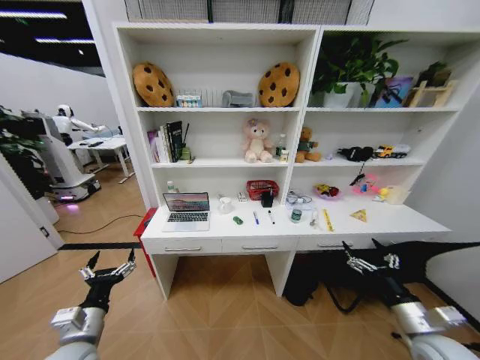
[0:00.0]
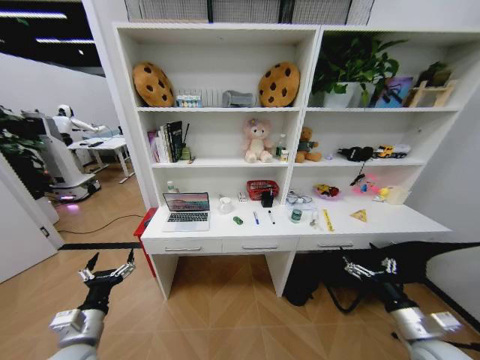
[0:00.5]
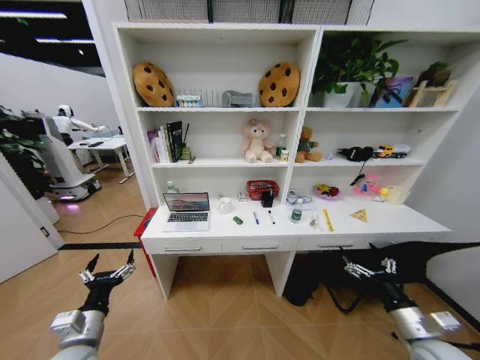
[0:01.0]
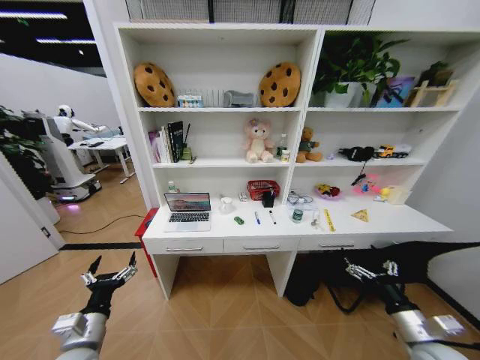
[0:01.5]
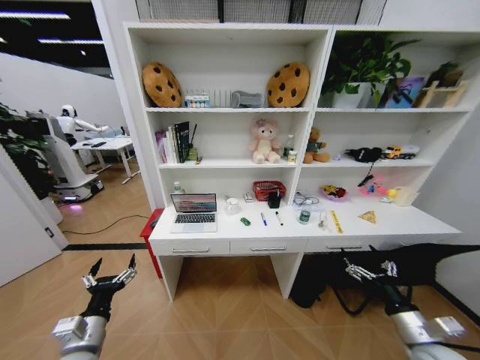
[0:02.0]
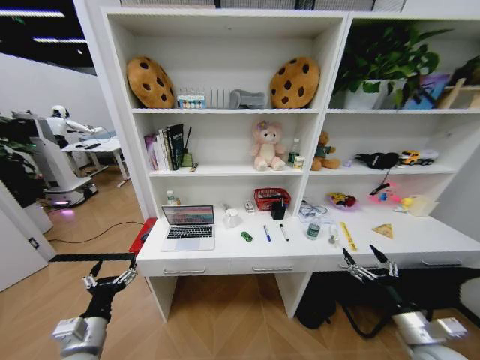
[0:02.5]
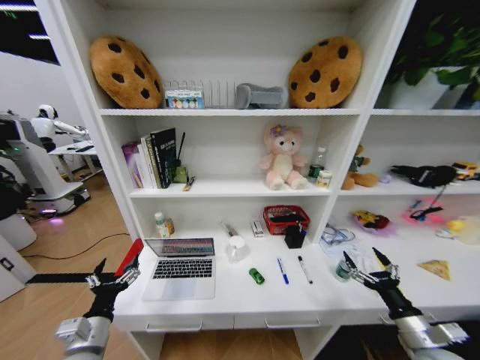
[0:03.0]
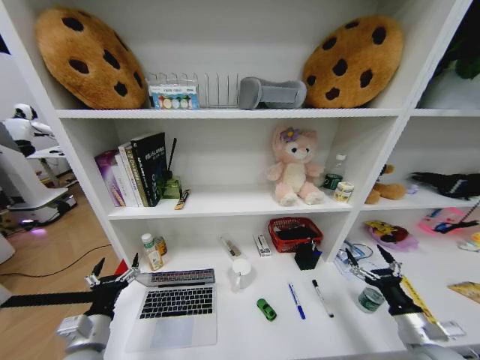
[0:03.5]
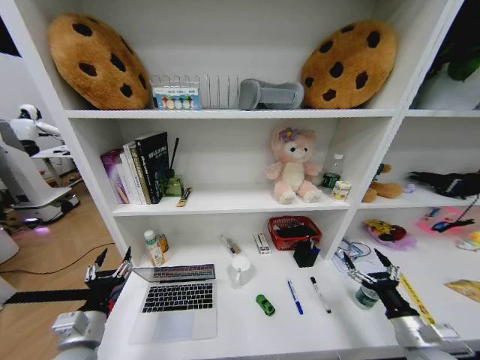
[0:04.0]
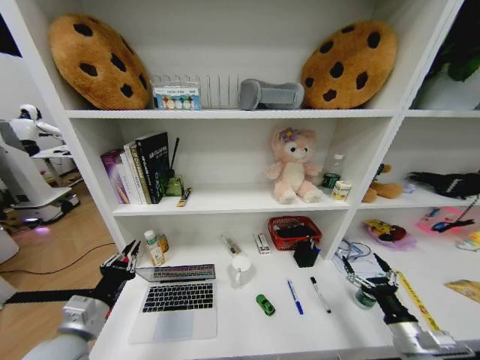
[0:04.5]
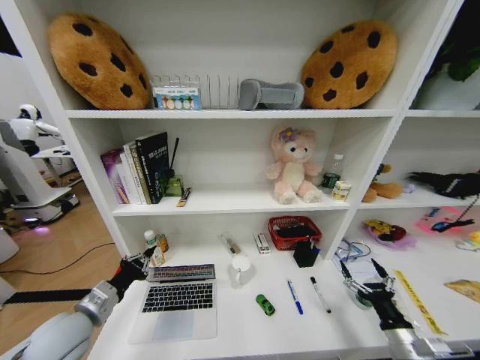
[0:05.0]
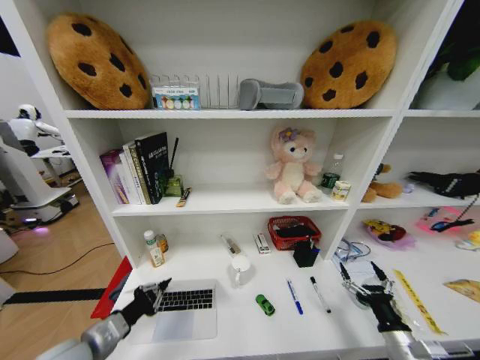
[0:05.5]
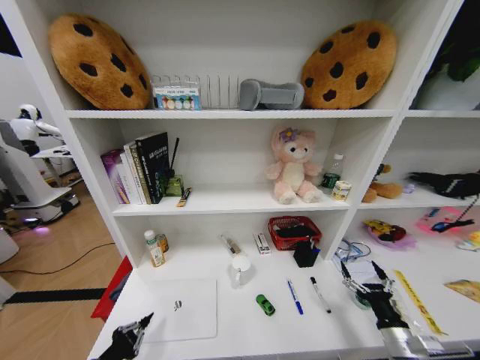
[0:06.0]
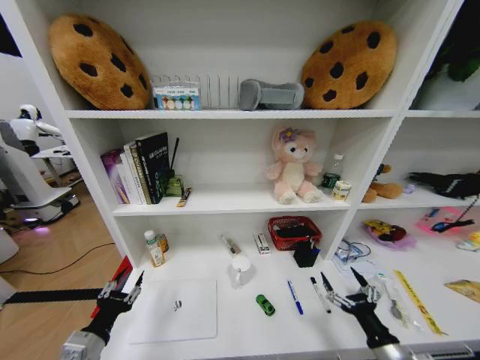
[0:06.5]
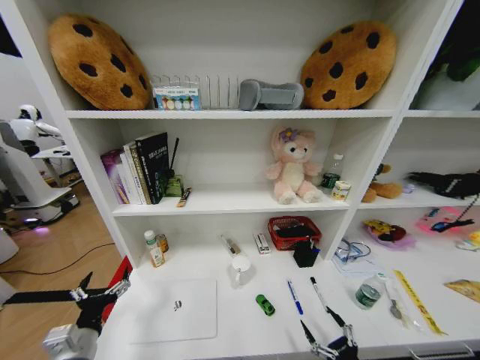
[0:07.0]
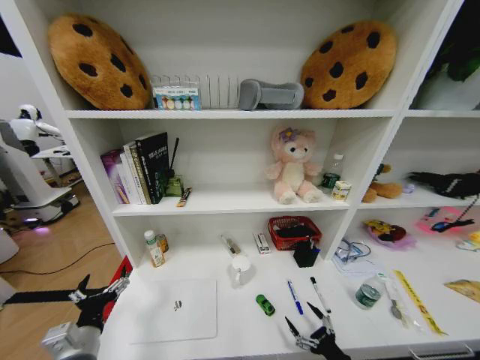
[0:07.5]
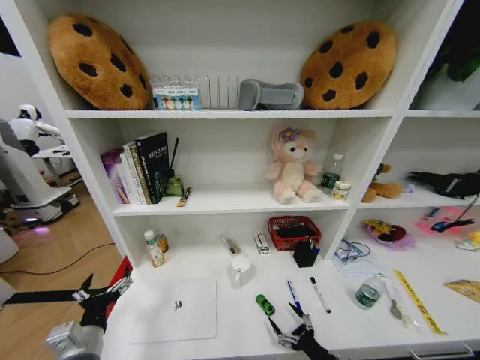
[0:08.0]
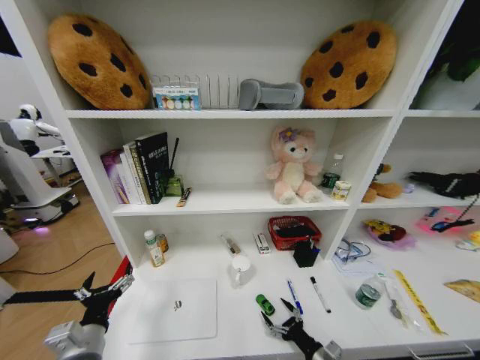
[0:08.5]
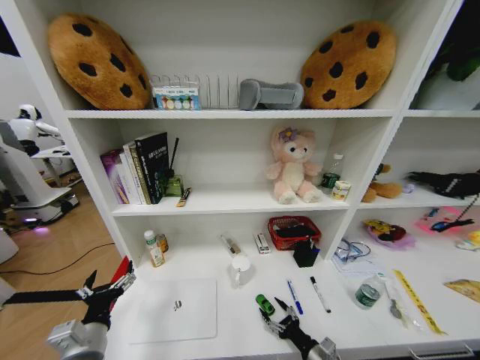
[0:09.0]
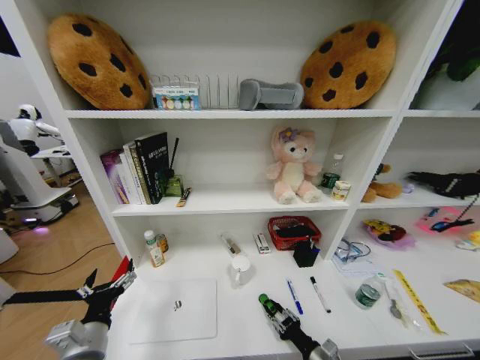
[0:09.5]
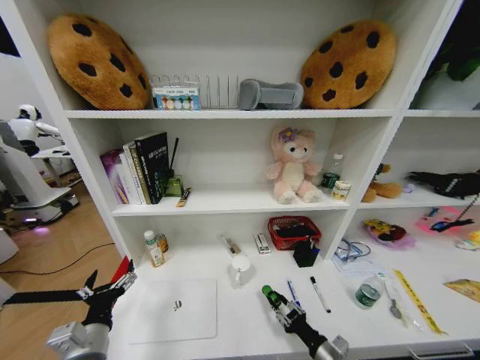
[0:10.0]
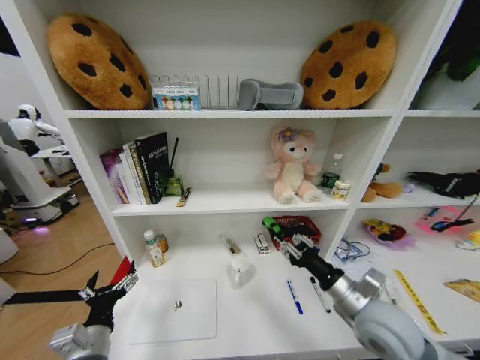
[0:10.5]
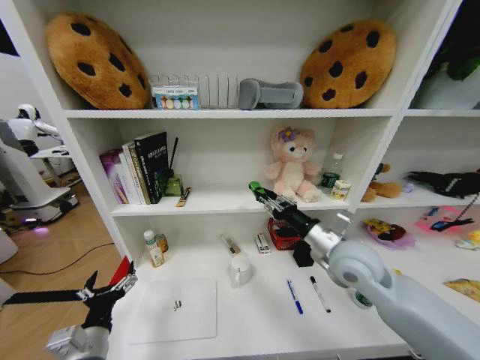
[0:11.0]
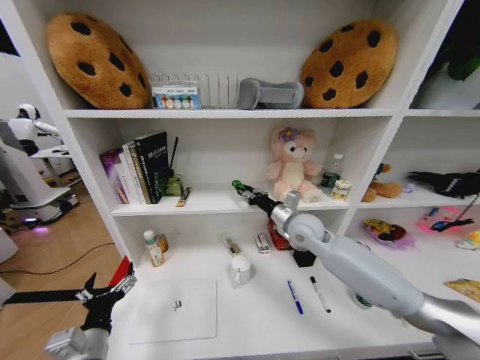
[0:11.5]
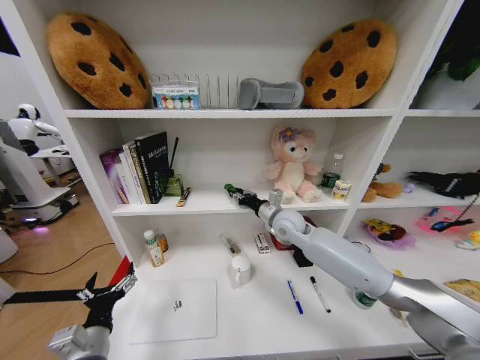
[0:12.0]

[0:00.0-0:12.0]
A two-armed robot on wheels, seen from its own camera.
Task of the whole recording: Organize the objects on the table.
0:04.0 to 0:06.0: The left gripper travels backward by roughly 10 cm, and closes up.
0:06.0 to 0:08.0: The left gripper travels forward by about 5 cm, and opens. Meanwhile the right gripper moves to the left and downward, approximately 15 cm.
0:08.0 to 0:10.0: The right gripper moves about 5 cm, and closes.
0:10.0 to 0:12.0: The right gripper is displaced forward and upward by some 40 cm.

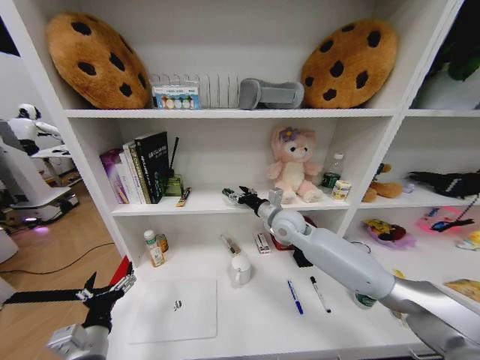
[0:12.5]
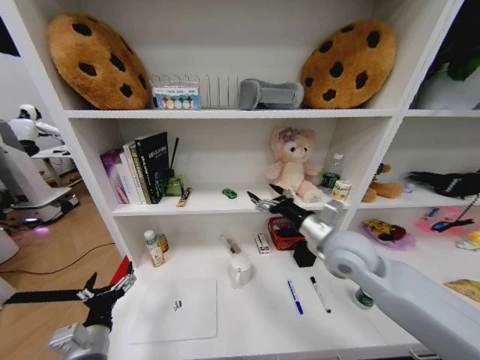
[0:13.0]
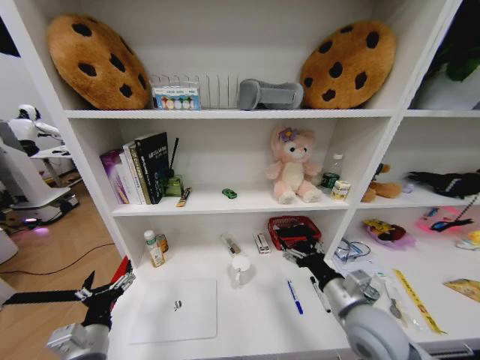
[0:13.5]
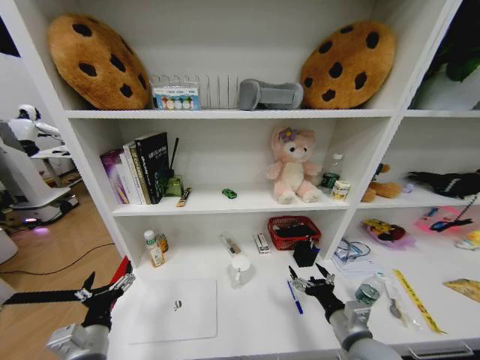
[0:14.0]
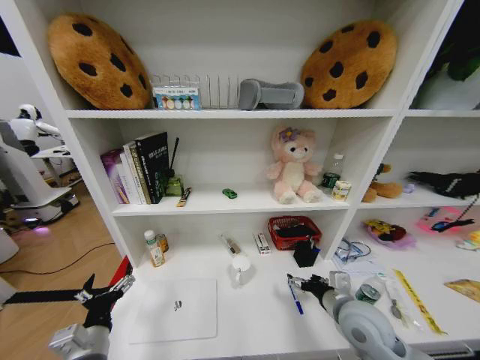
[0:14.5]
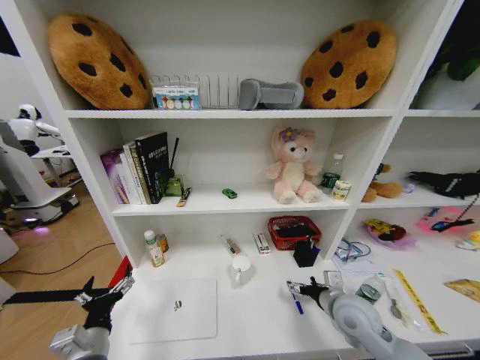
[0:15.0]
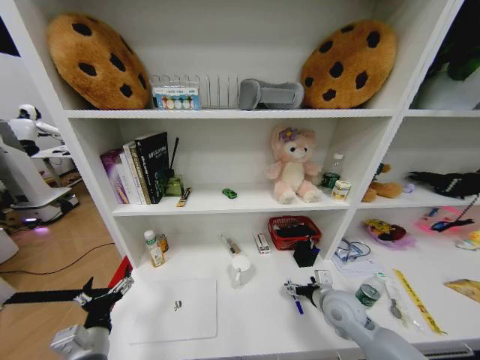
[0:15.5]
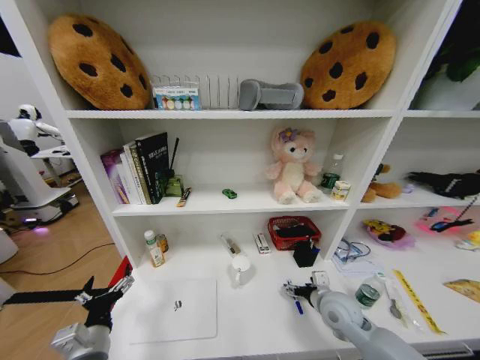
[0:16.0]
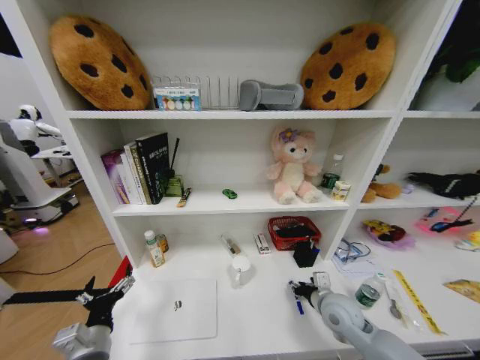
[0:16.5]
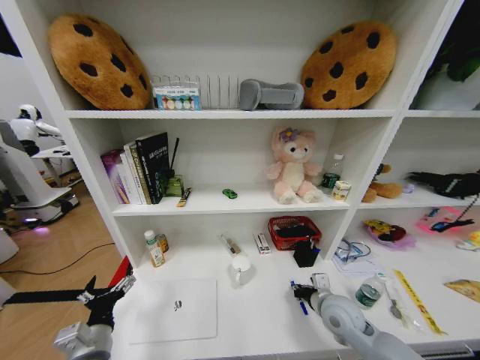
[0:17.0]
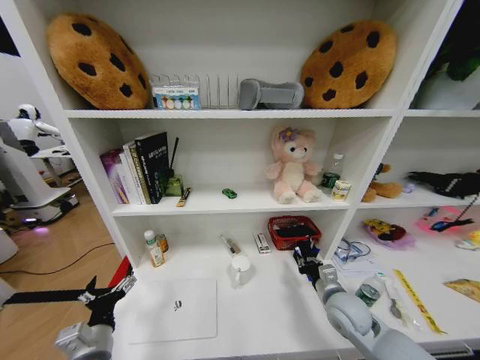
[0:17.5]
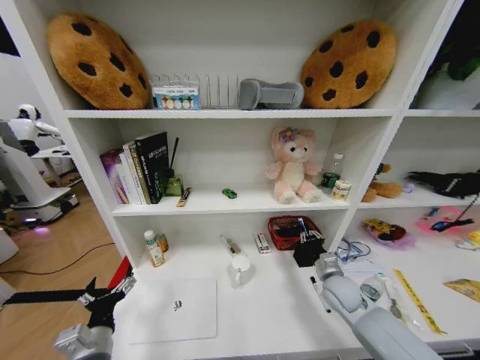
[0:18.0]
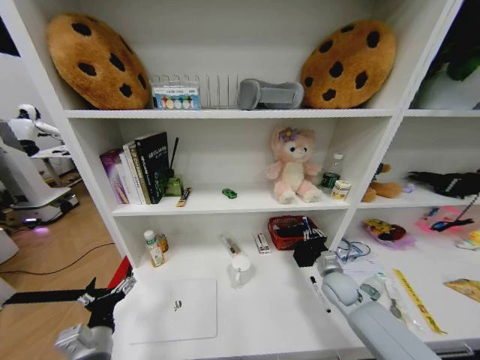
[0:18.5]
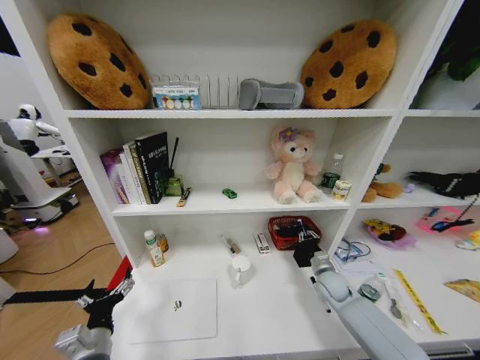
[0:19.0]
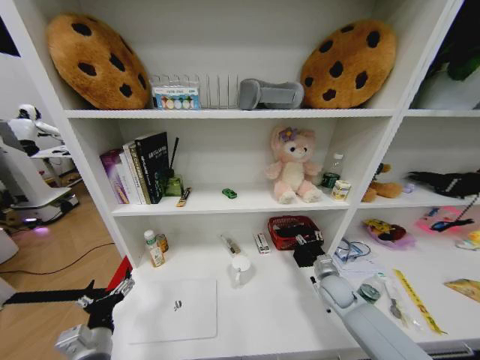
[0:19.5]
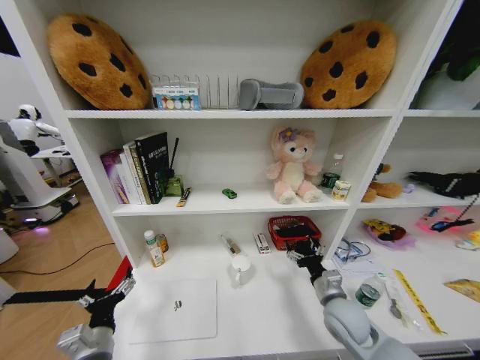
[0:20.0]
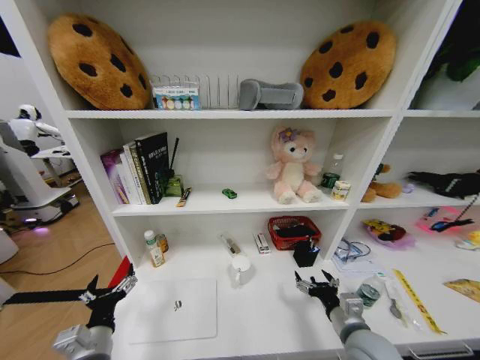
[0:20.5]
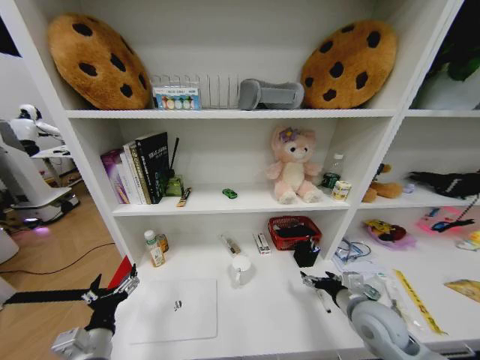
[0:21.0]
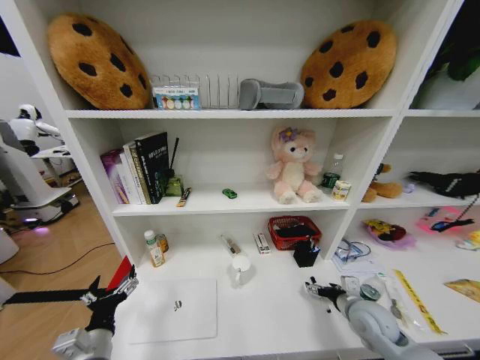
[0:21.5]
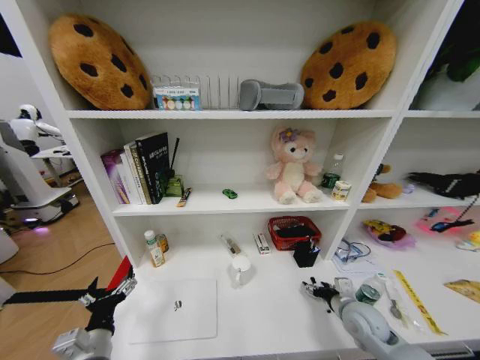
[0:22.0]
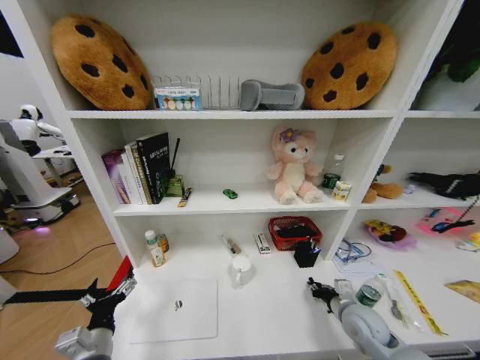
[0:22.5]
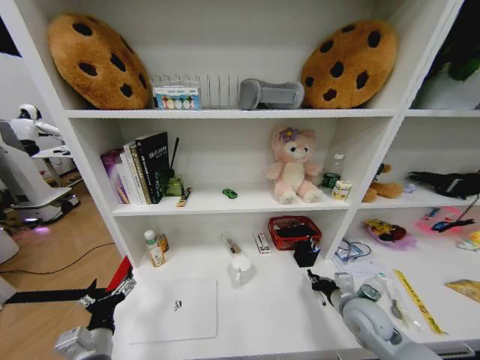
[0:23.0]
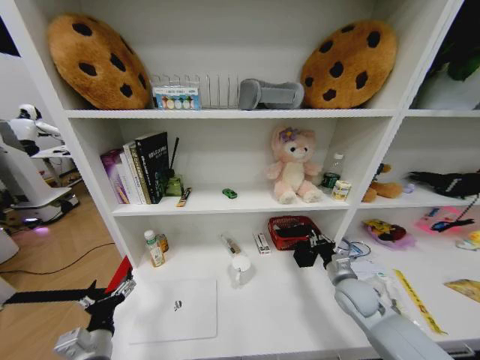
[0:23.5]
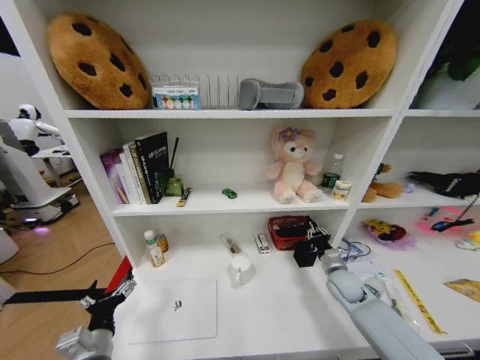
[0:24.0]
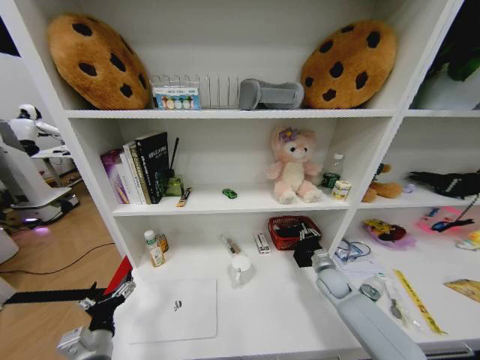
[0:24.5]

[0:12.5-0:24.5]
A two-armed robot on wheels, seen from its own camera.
Task of the whole recording: Organize the objects on the table.
0:12.5 to 0:14.5: The right gripper travels backward, to the right and downward by some 25 cm.
0:14.5 to 0:16.5: The right gripper shifts approximately 5 cm downward, and closes up.
0:16.5 to 0:18.5: The right gripper travels forward and to the right by approximately 10 cm.
0:18.5 to 0:20.5: The right gripper is displaced backward by some 15 cm, and opens up.
0:20.5 to 0:22.5: The right gripper is displaced forward, to the right and downward by roughly 10 cm, and closes up.
0:22.5 to 0:24.5: The right gripper is displaced forward by roughly 15 cm.

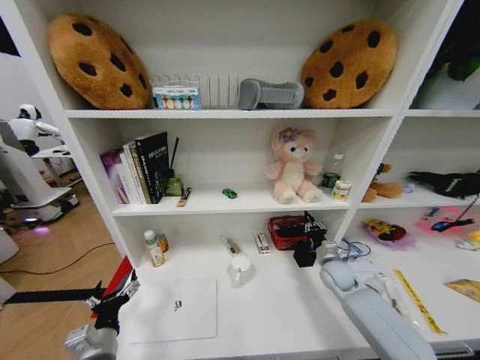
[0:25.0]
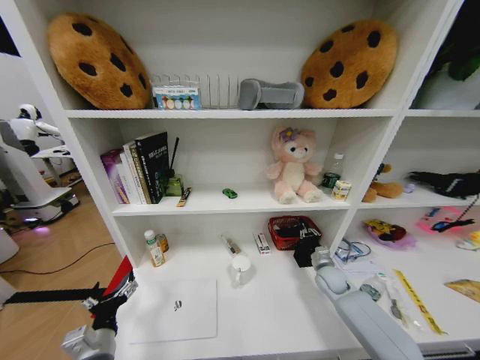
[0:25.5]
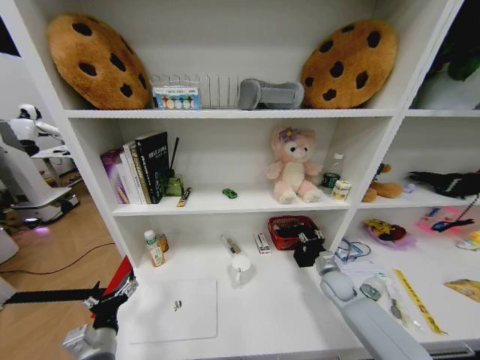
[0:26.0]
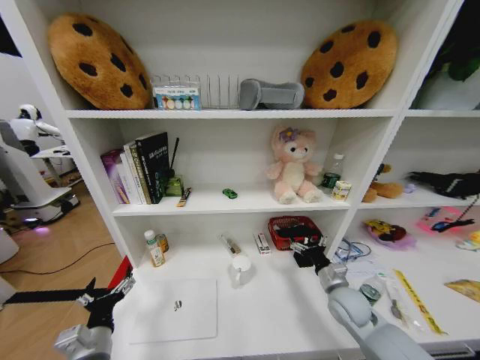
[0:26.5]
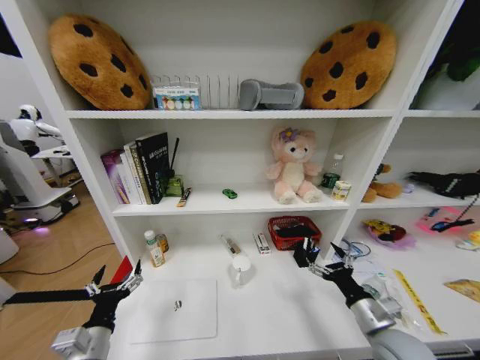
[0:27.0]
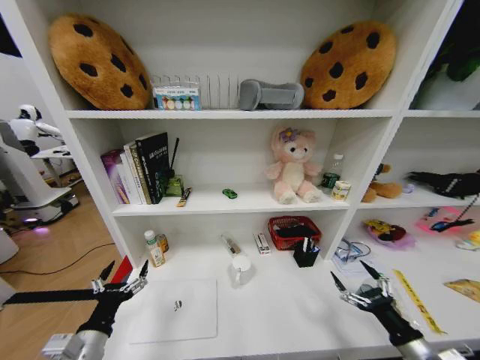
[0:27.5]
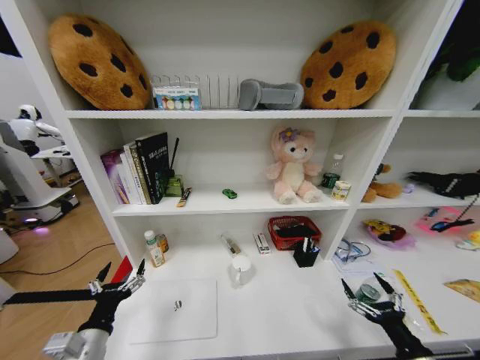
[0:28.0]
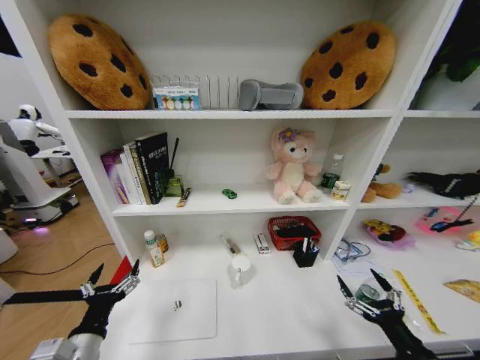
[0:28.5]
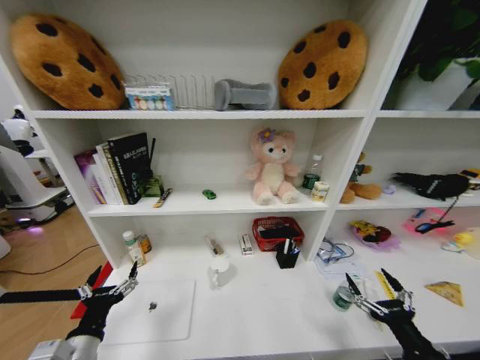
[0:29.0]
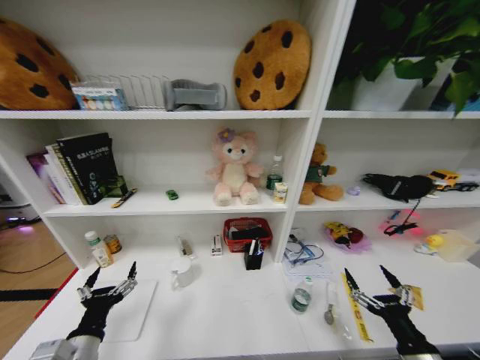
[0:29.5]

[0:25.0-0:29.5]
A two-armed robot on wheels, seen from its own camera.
Task of the whole recording: Organize the objects on the table.
0:25.0 to 0:27.0: The right gripper is displaced backward by approximately 20 cm, and opens up.
0:27.0 to 0:29.5: The right gripper is displaced backward by roughly 10 cm.
